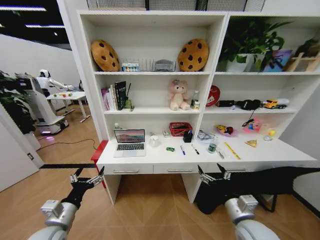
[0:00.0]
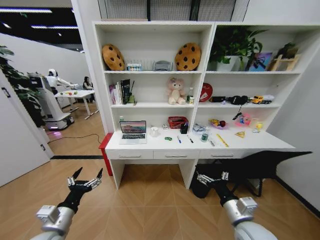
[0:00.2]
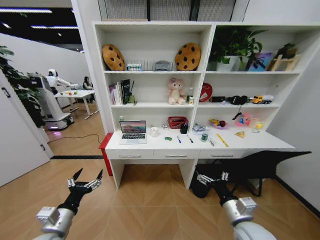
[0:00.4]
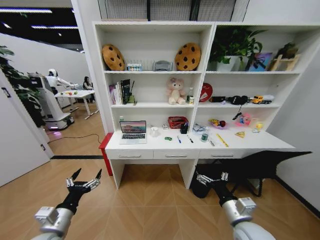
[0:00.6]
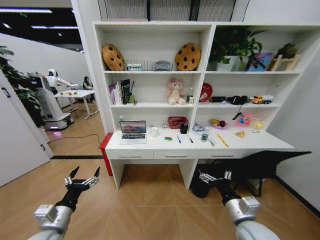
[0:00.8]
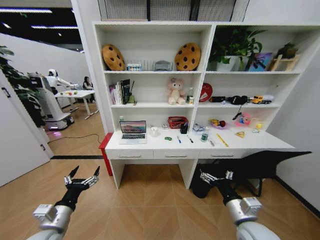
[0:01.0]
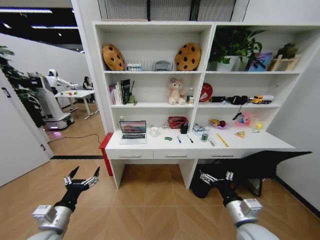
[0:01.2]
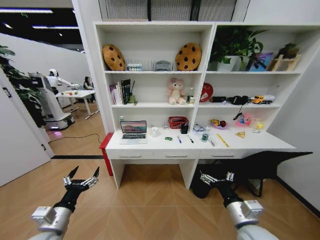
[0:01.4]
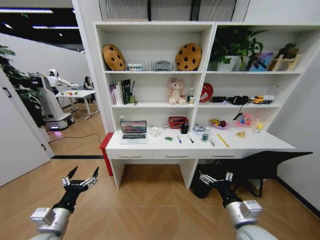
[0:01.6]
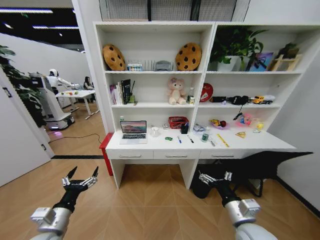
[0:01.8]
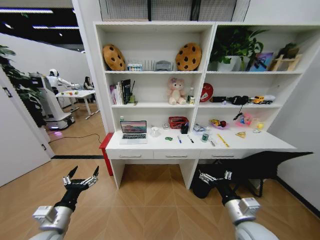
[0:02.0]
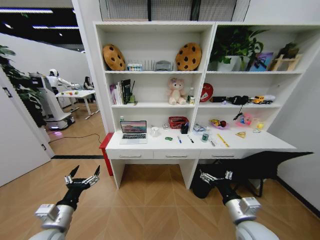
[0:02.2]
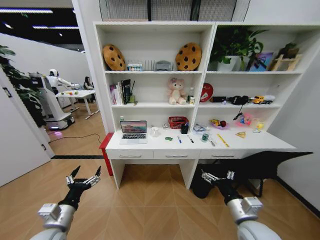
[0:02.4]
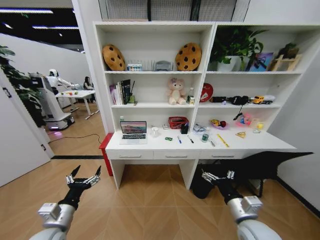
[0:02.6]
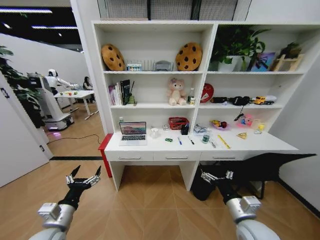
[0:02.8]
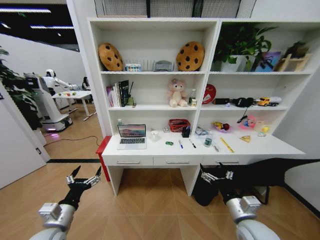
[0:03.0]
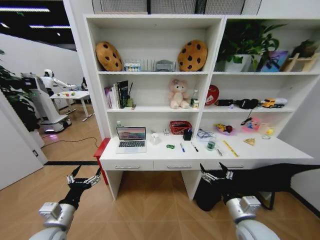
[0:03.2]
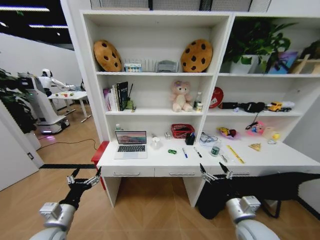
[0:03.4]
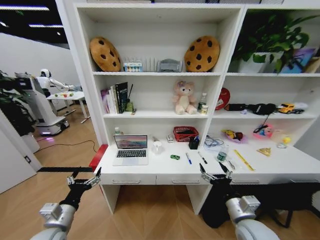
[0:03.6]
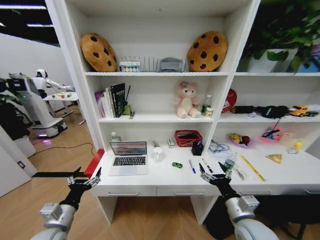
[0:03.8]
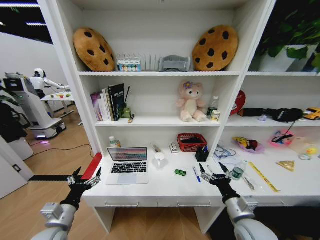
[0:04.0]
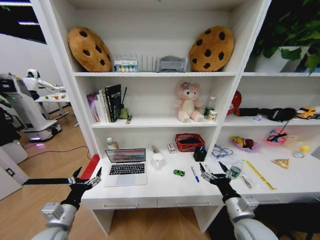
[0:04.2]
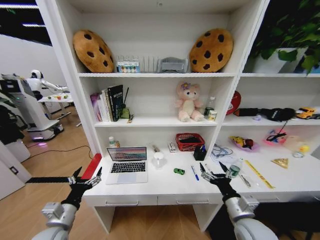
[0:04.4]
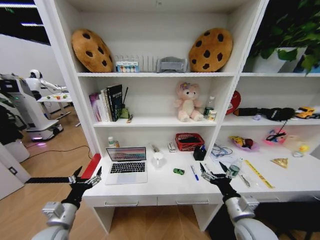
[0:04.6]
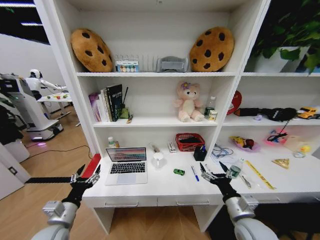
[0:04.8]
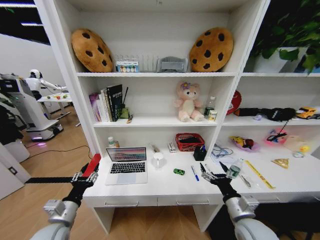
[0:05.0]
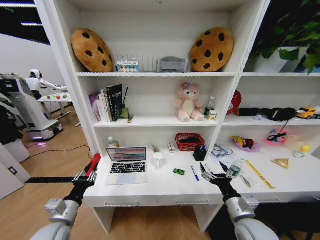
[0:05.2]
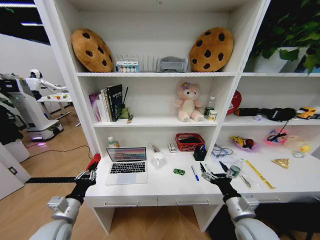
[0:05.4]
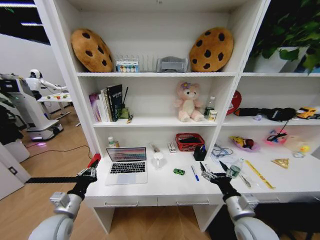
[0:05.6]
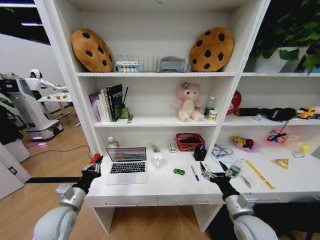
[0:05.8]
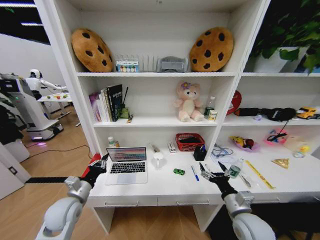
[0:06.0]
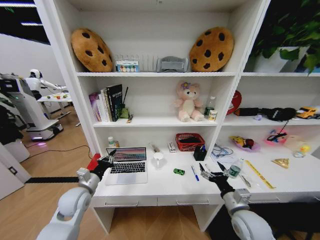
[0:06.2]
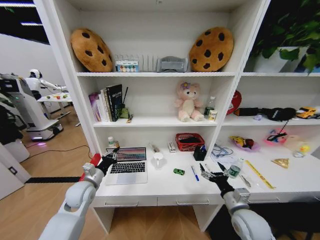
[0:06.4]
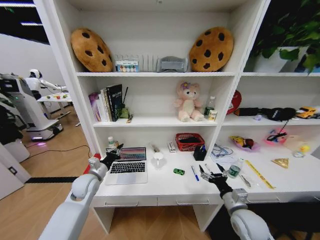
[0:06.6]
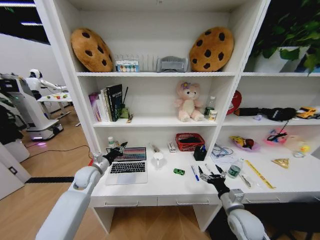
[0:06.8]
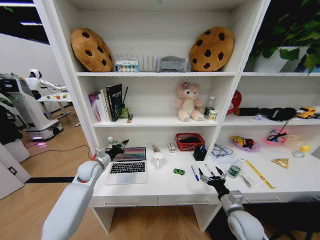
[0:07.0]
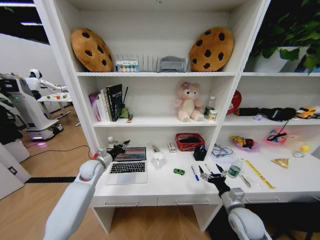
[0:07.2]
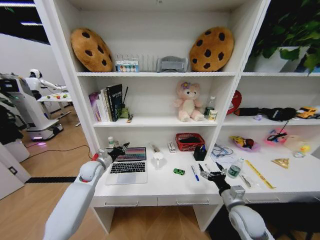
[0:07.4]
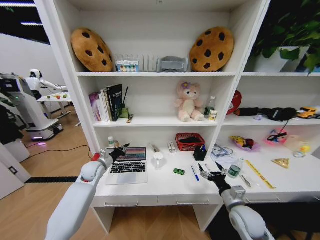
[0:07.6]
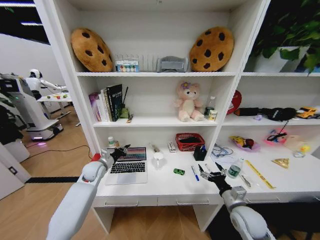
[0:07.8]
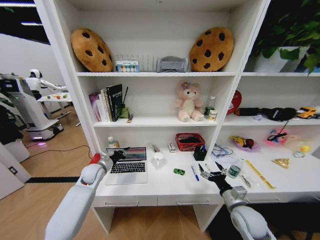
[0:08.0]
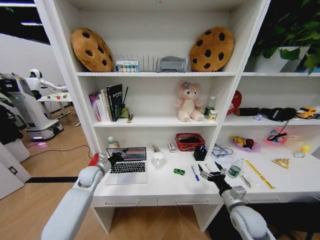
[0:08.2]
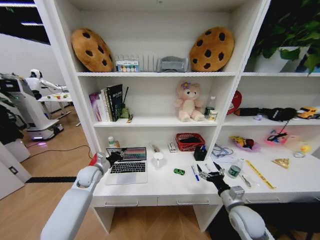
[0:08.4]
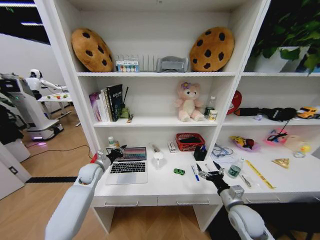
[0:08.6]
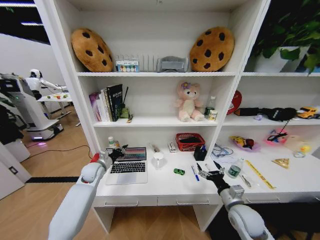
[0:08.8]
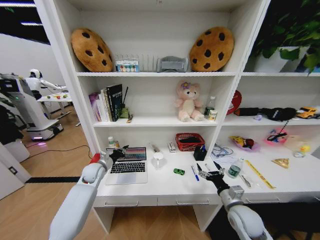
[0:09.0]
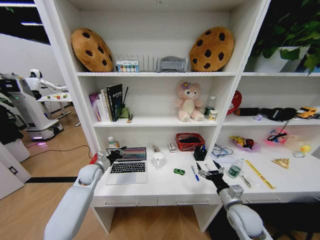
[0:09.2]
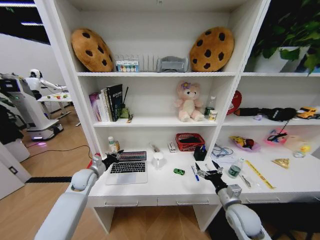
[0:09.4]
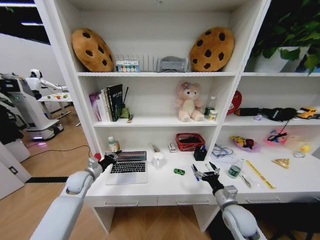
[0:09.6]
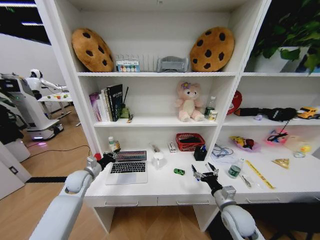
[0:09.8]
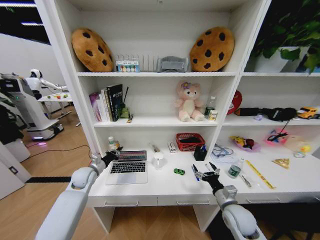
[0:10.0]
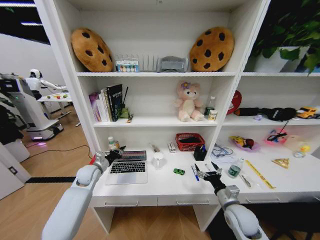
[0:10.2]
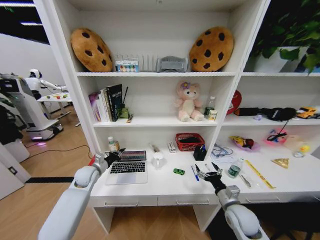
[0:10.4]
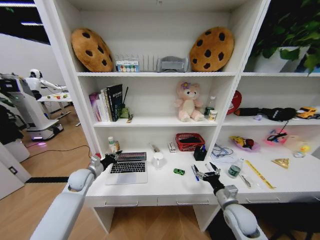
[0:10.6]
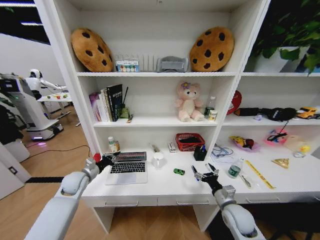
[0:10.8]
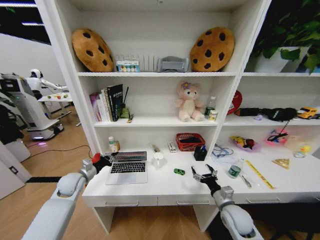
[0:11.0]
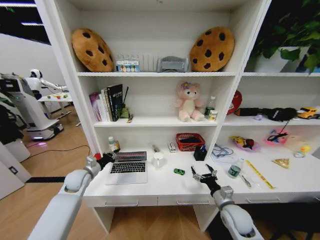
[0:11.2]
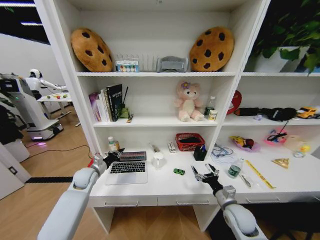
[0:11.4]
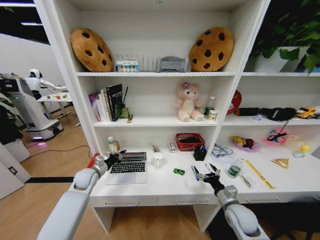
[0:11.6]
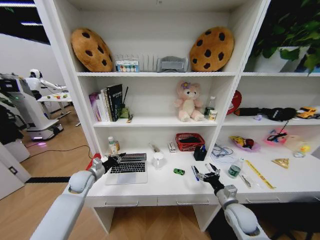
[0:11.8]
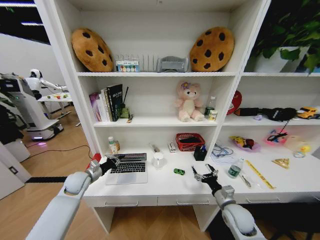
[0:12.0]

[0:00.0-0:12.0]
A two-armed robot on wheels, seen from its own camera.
Task of the whole recording: Organize the objects on the table.
0:04.4 to 0:06.0: The left gripper shifts approximately 10 cm forward, and closes its fingers.
0:06.0 to 0:07.6: The right gripper changes place by about 5 cm, while the left gripper heads forward, covering roughly 15 cm.
0:07.6 to 0:09.0: The grippers stay close to where they were, moving slightly.
0:10.4 to 0:12.0: There are only small adjustments of the grippers.

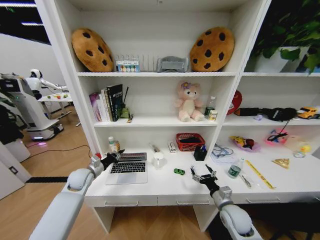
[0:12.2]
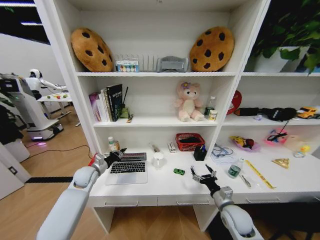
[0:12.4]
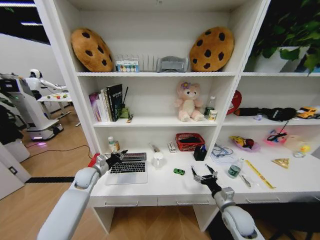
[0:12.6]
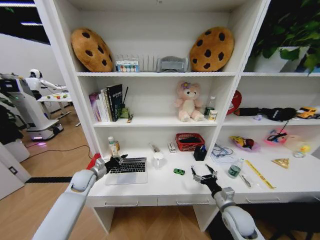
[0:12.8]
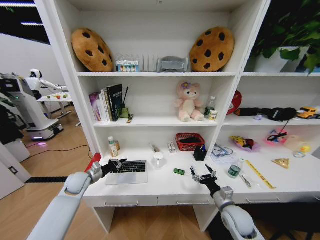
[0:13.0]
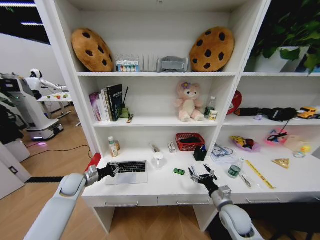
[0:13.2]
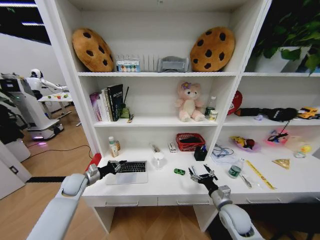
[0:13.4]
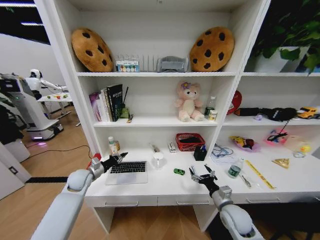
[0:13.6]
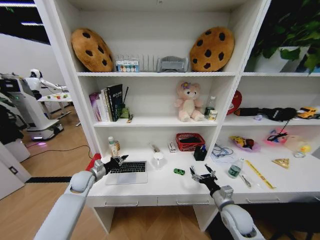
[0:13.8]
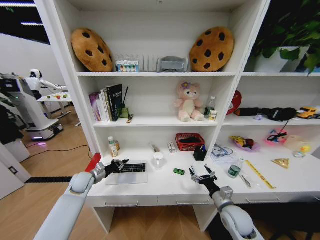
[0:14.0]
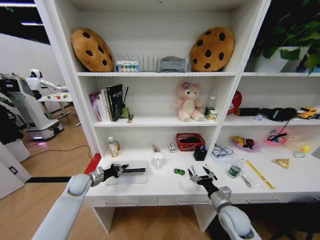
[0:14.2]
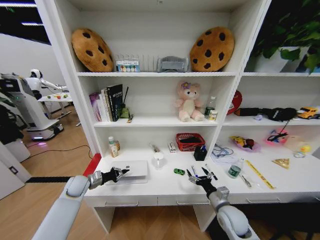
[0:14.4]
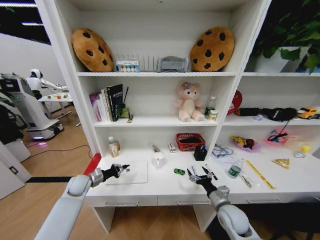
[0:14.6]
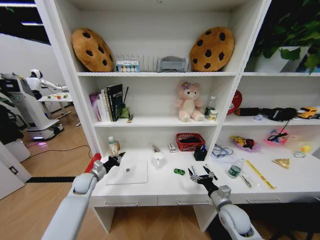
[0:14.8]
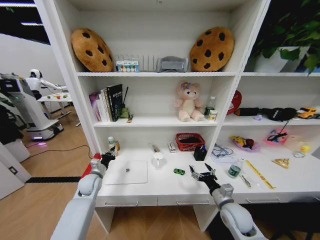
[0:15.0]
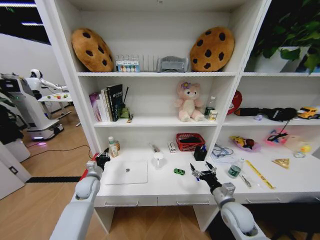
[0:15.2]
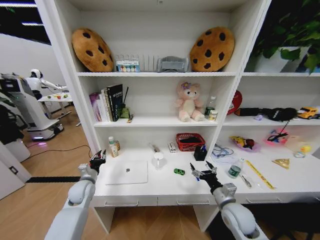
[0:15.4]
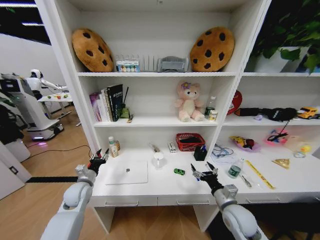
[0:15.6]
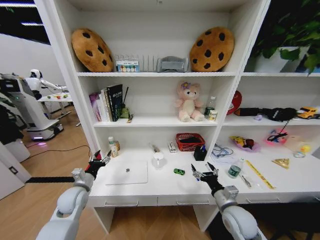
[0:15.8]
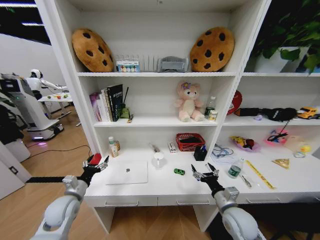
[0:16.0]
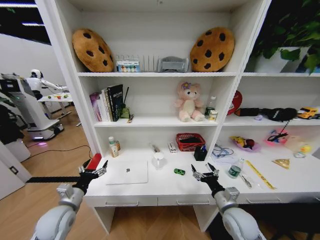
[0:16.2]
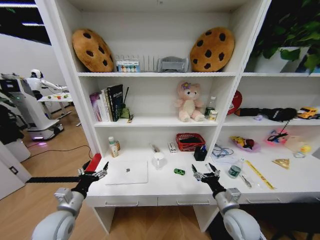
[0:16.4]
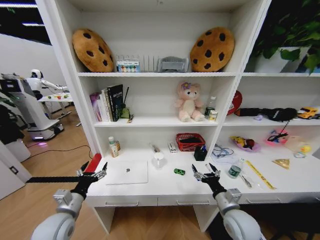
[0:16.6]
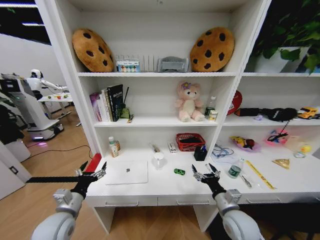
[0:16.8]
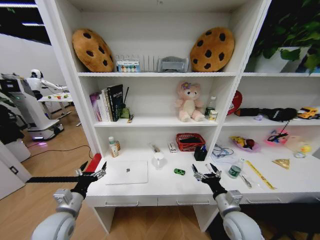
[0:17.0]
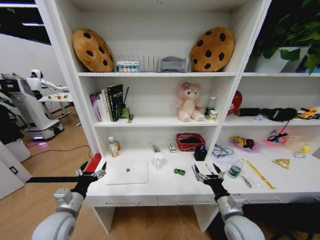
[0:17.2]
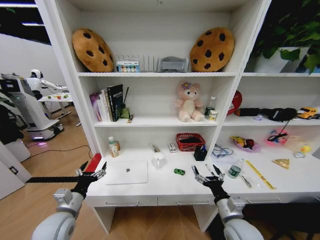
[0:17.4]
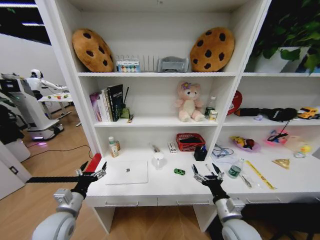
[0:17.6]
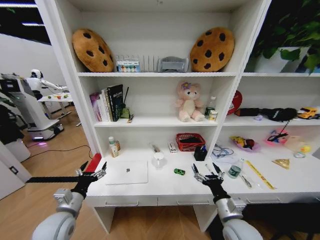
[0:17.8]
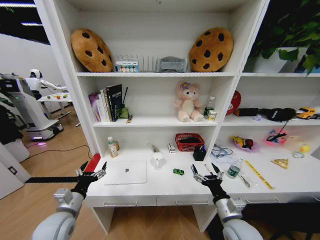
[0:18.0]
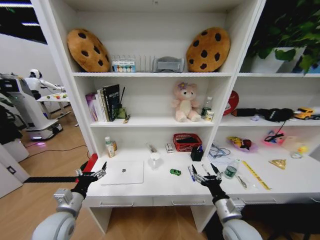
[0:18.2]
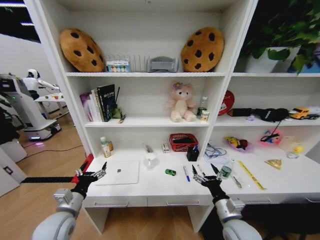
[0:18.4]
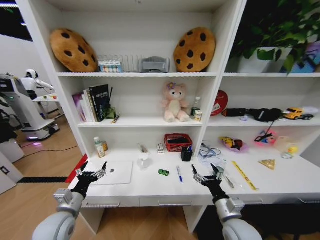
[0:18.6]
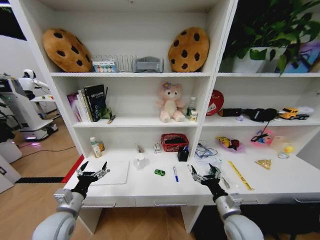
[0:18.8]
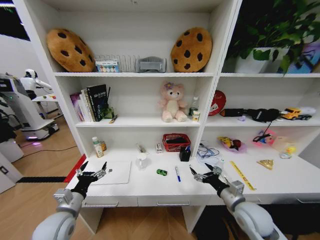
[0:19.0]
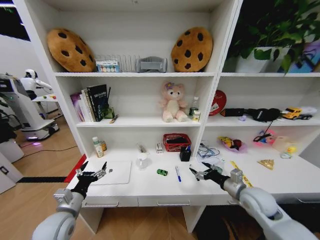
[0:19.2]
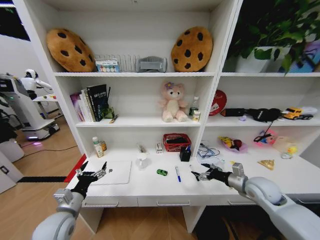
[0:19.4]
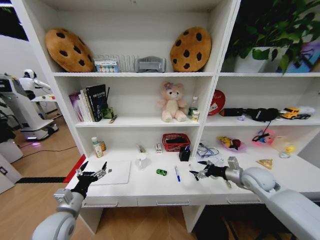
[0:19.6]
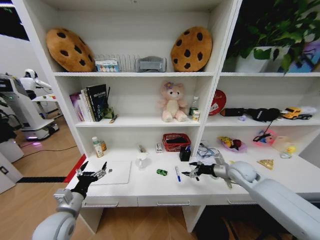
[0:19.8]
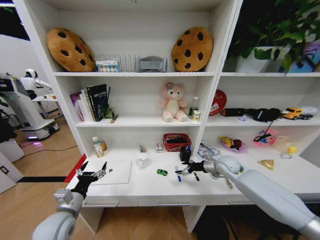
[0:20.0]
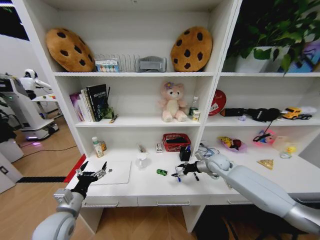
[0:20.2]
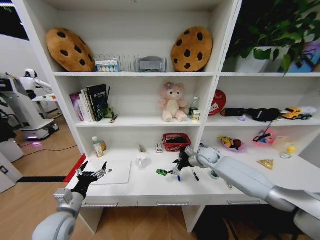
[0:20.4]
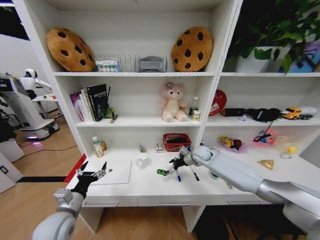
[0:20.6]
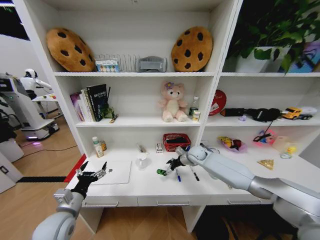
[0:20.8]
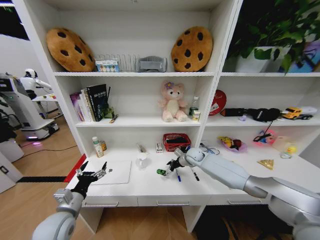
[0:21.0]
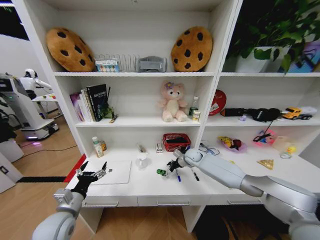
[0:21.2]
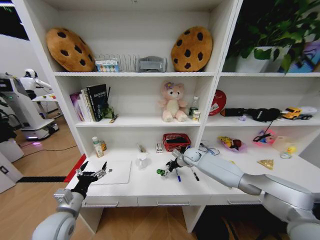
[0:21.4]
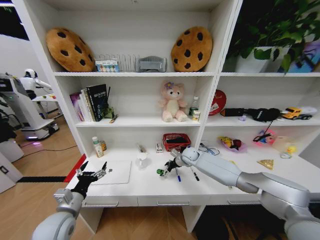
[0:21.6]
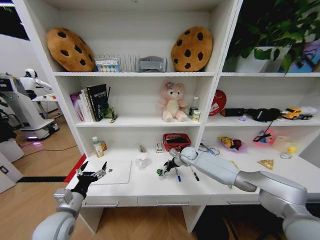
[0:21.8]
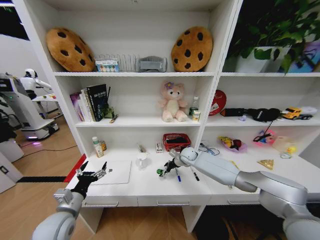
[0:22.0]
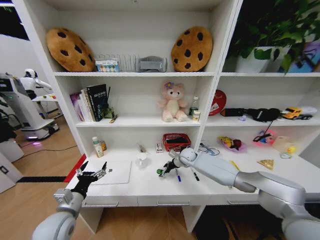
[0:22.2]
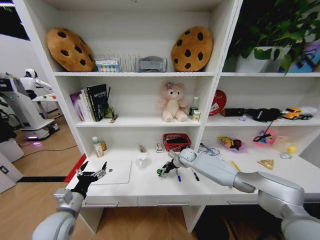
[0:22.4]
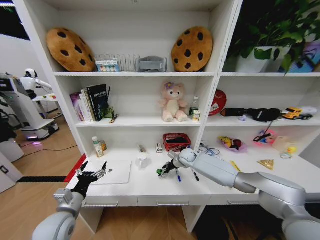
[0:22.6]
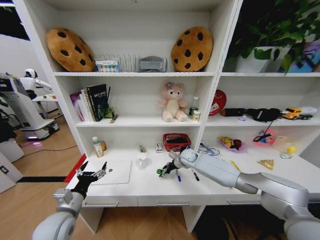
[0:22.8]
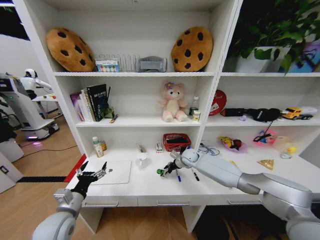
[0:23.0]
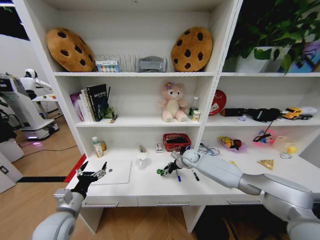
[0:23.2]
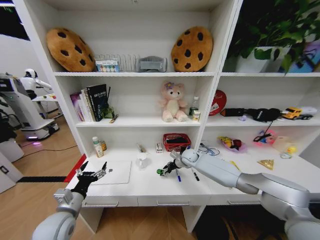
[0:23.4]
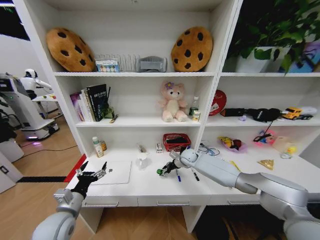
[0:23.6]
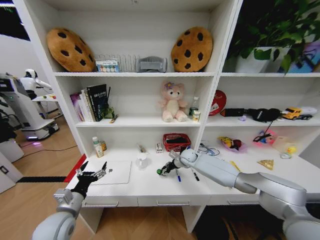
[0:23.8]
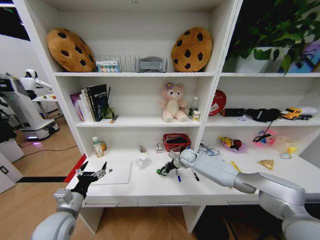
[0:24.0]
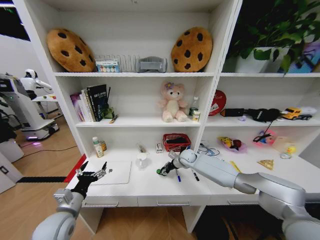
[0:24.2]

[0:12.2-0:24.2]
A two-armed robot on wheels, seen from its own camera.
Task of the whole recording: Organize the objects on the table.
0:15.2 to 0:16.6: The left gripper moves backward, some 15 cm, and opens up.
0:16.6 to 0:18.2: The grippers stay close to where they were, moving slightly.
0:18.2 to 0:19.8: The right gripper shifts about 25 cm forward and to the right.
0:19.8 to 0:21.2: The right gripper shifts some 20 cm to the left, forward and downward.
0:21.2 to 0:22.6: The grippers stay close to where they were, moving slightly.
0:22.6 to 0:24.2: The right gripper closes.
